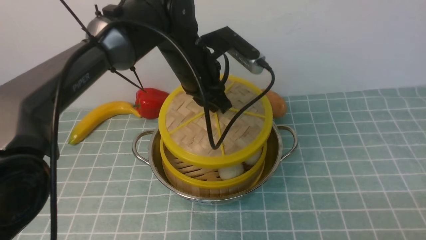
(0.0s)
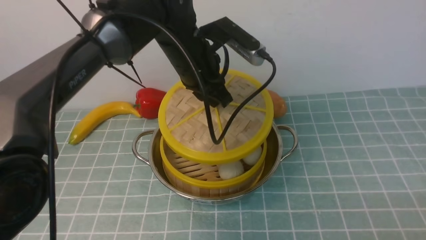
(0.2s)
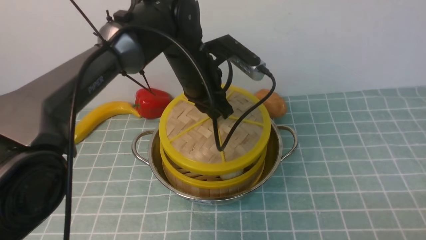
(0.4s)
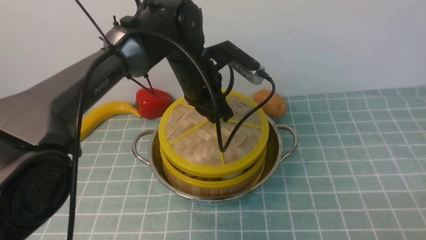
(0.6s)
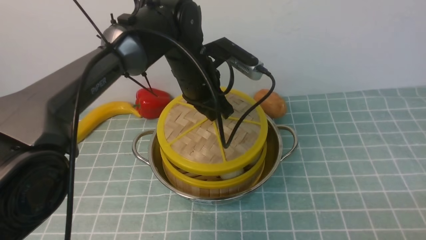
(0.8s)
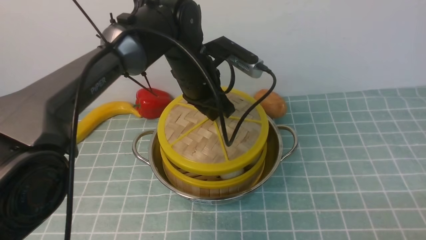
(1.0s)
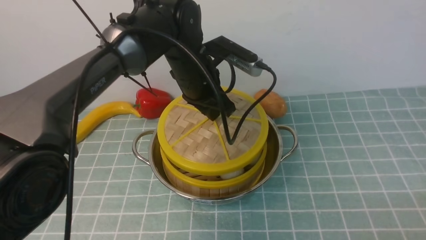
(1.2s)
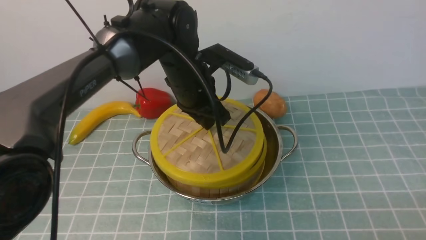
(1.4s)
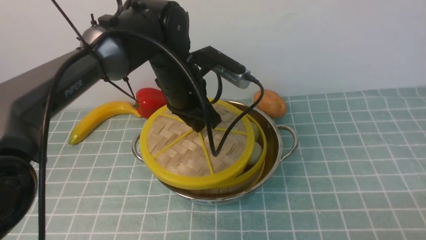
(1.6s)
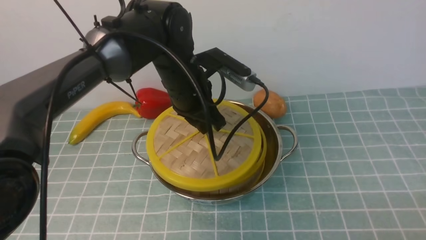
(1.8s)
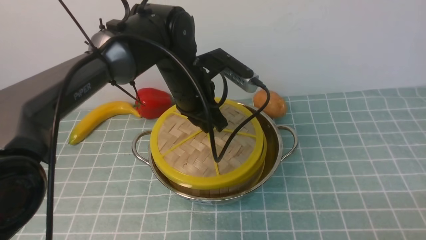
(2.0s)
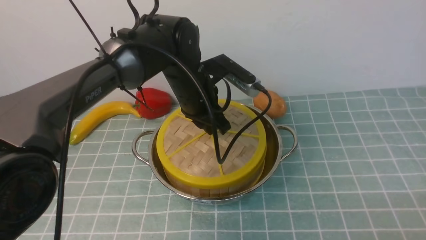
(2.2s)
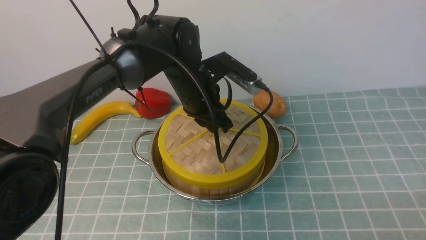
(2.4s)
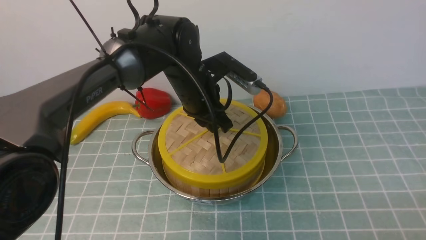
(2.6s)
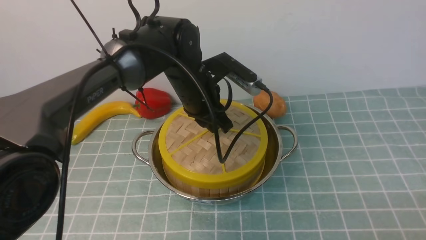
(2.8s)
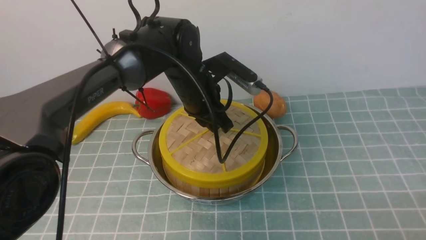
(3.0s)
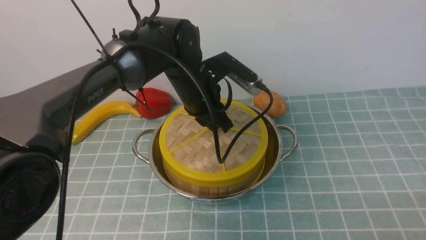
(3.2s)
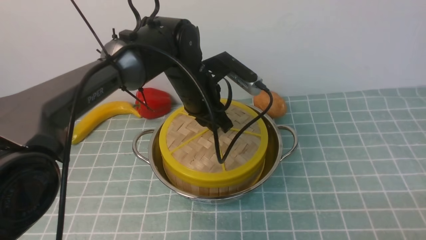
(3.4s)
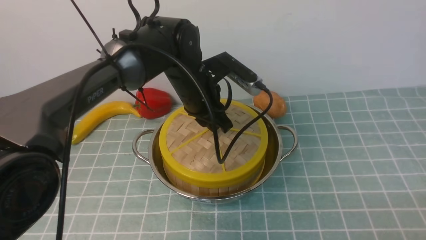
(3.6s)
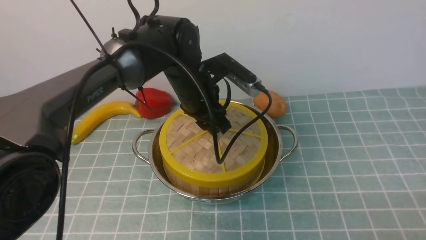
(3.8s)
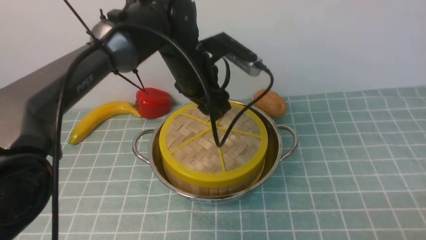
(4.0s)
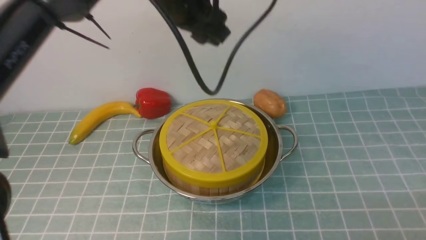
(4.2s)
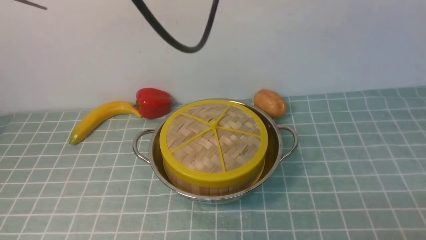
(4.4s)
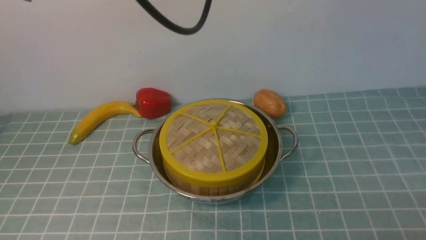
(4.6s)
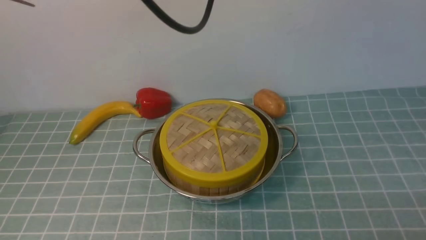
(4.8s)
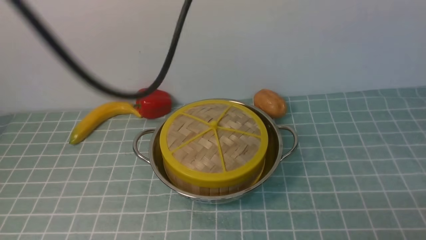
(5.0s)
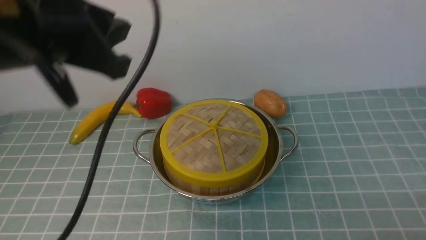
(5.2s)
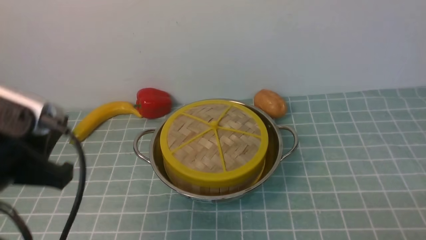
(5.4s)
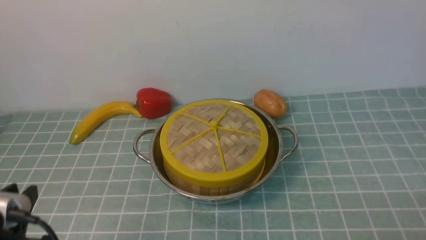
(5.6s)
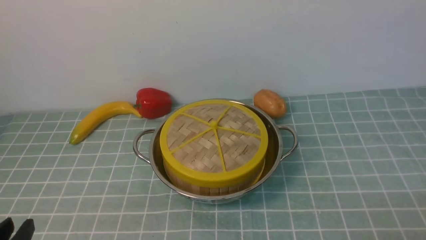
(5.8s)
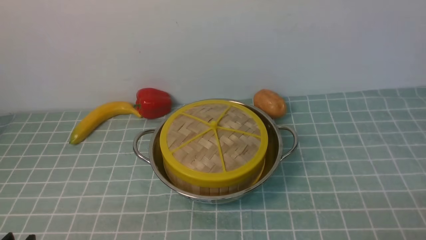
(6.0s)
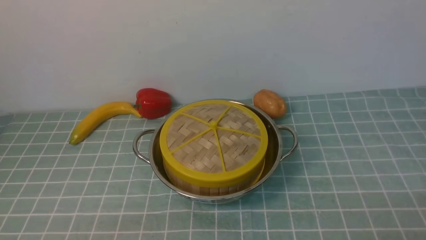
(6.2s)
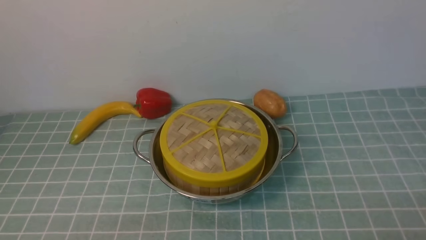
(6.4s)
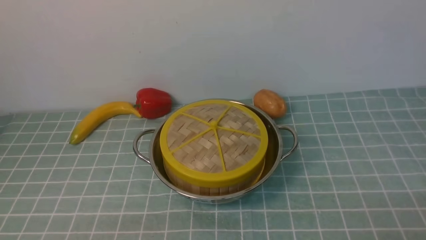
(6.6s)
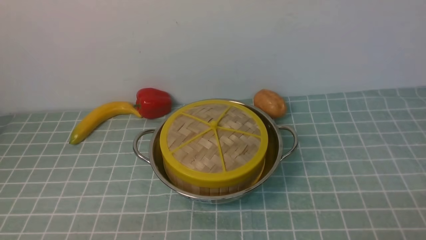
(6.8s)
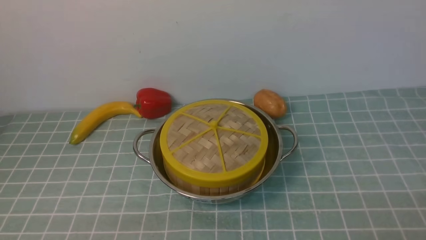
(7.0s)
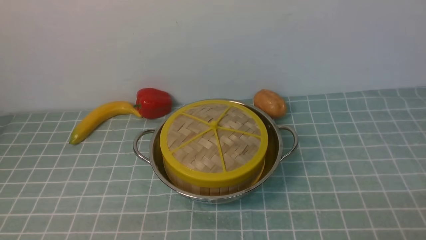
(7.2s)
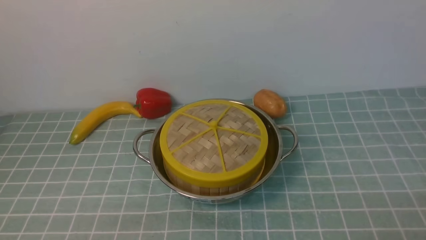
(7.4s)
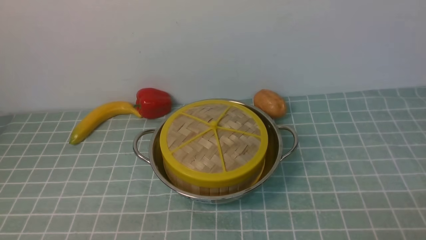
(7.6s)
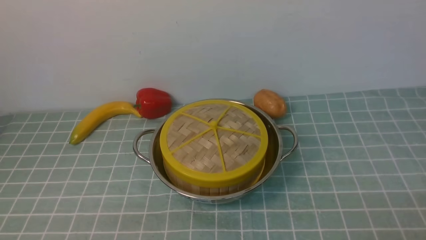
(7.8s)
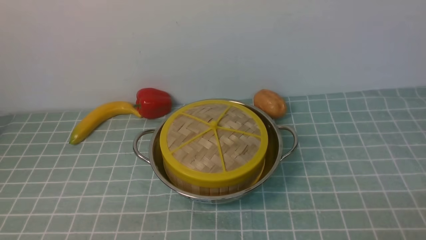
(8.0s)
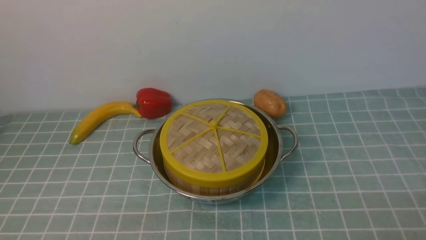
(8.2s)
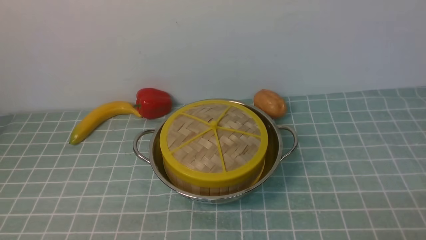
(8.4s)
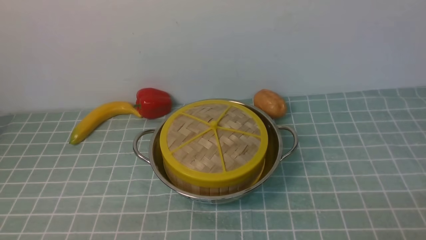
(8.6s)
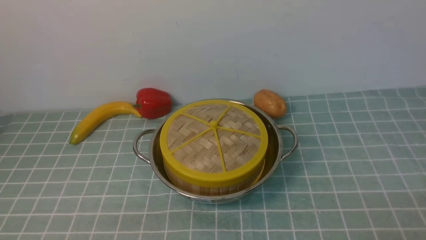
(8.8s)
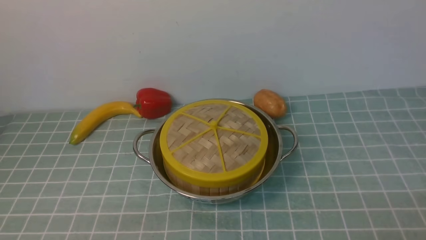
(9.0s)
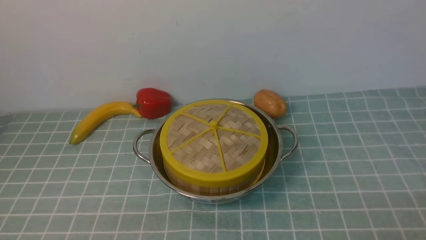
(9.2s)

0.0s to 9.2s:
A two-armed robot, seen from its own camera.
Task of the whole recording: place the steamer in the pot on the blue tablecloth, and put the lid on the steamer.
Step, 0.0s to 4.4s: use the left arm to place the steamer lid on the steamer.
0.0s to 1.6s: There are only small adjustments of the grippers.
3.0s to 4.6s: The left gripper is displaced upward by about 25 cm, and opens.
4.6s to 6.2s: The left gripper heads downward, backward and to the left, covering some 50 cm.
7.6s to 9.2s: Both grippers stay about where they are.
